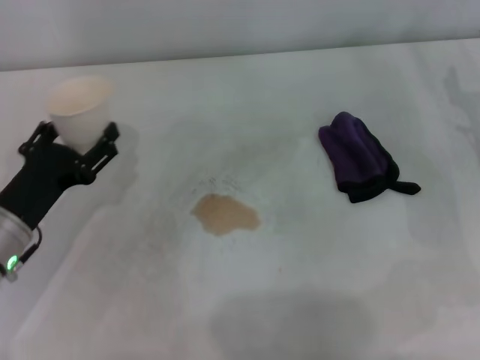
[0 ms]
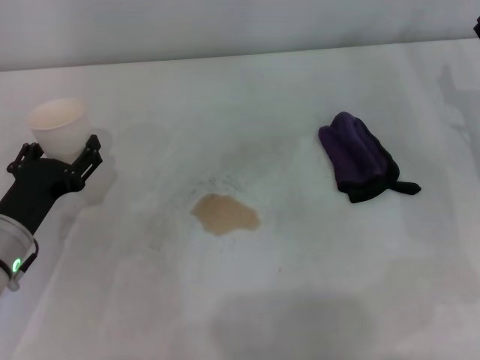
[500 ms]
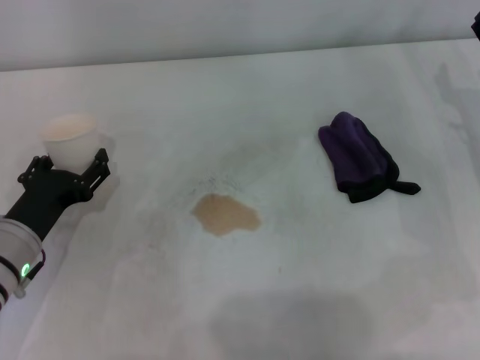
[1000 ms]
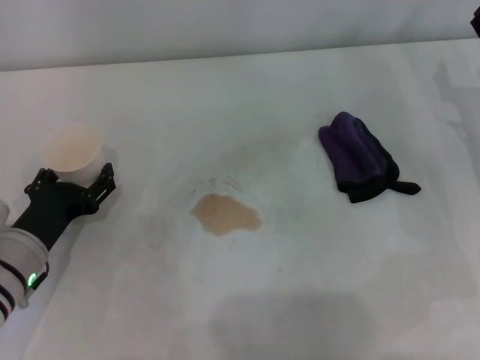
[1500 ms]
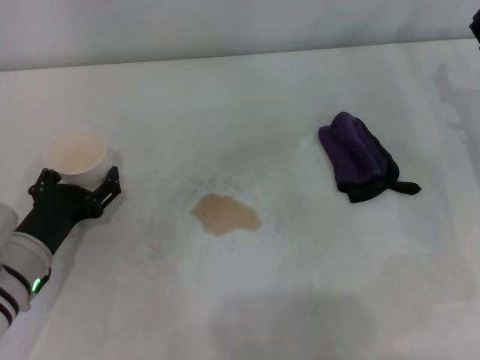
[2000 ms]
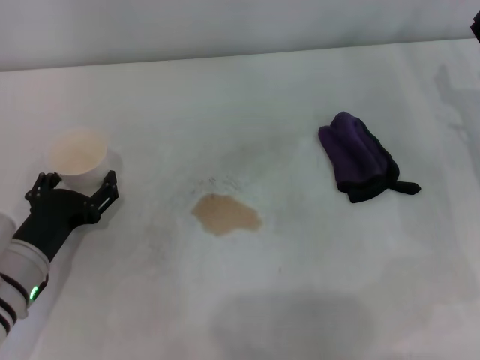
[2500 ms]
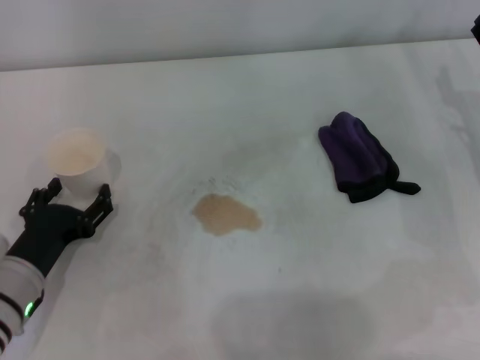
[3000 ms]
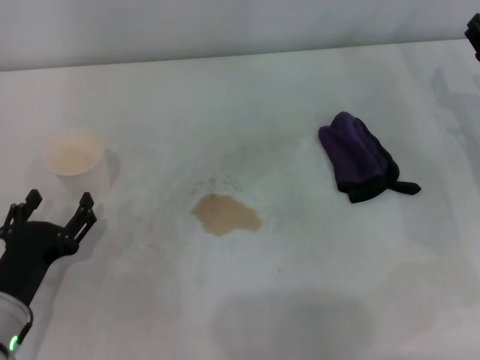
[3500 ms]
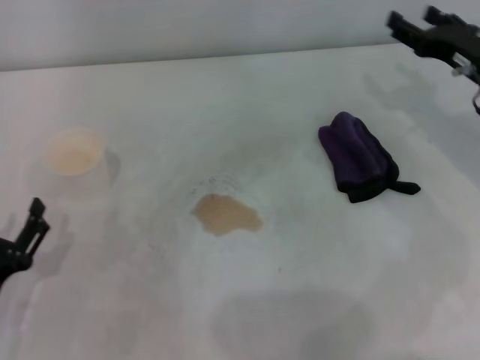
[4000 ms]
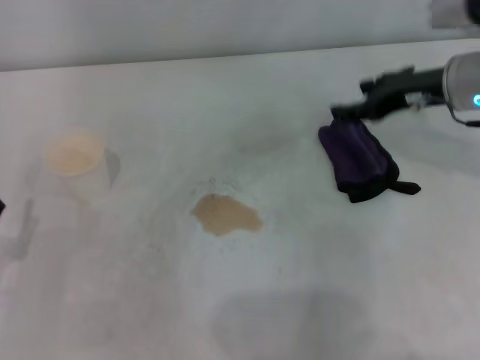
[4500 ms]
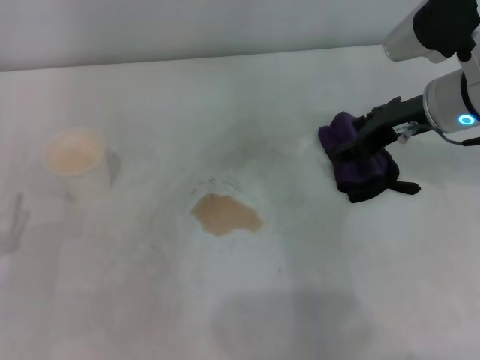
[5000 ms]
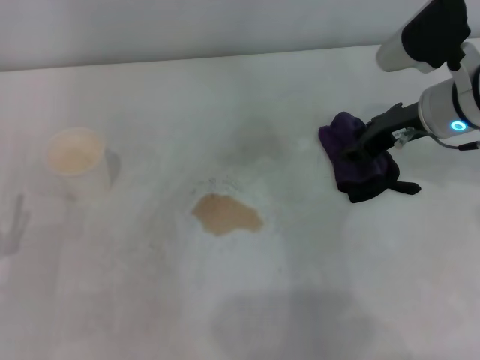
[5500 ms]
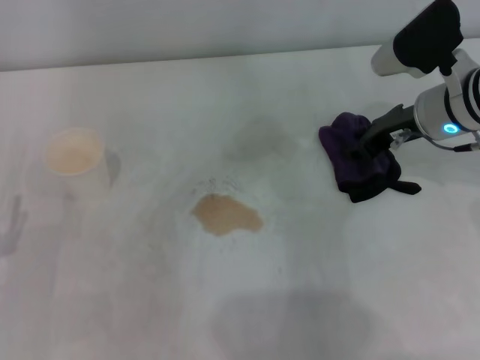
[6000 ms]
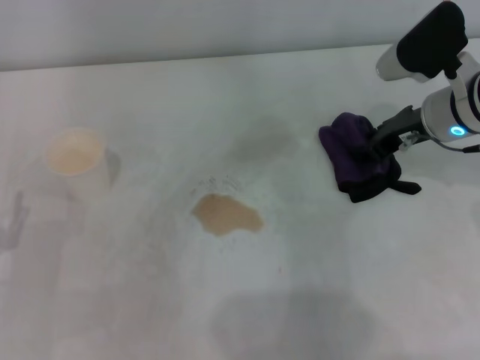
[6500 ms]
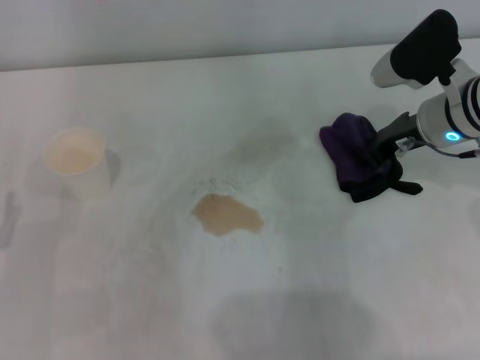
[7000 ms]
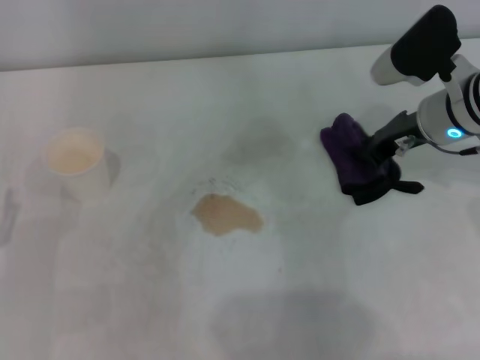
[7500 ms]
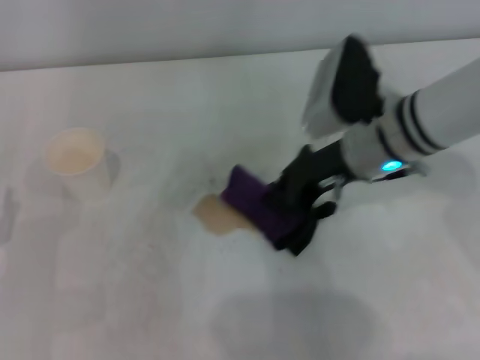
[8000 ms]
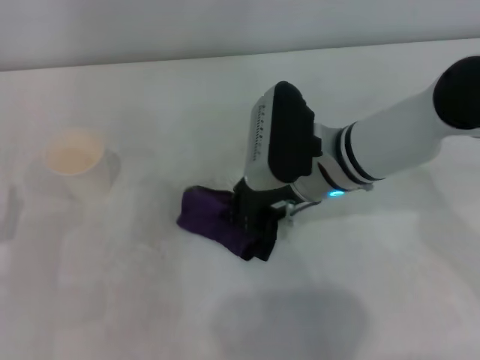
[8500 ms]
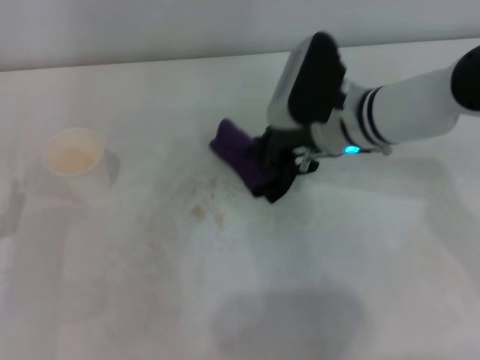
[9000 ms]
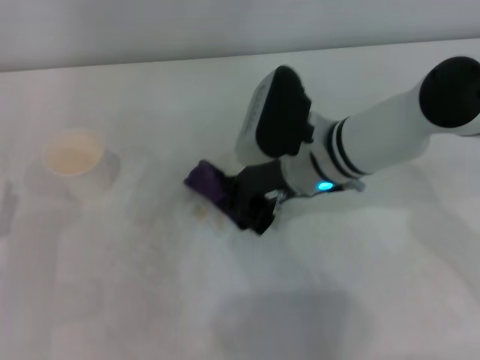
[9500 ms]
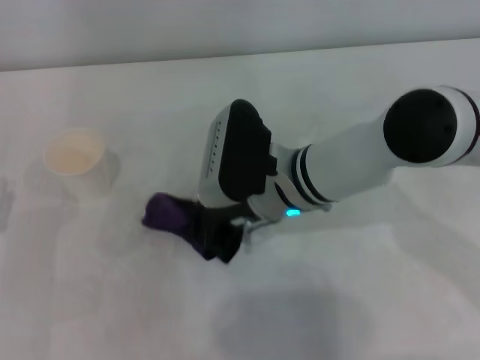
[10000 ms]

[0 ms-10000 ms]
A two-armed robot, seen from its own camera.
Step, 0 ms to 2500 ms: Stand the paper cup upright with the left gripper.
Step, 3000 ms to 6000 ms: Grasp the rag with the right gripper.
0 ms to 2000 ms: The grippers stay close to where they were, moving slightly.
2000 ms to 4000 ms: The left gripper travels backward by about 10 cm.
4000 ms to 6000 ms: The right gripper goes roughly 5 cm to the left, and closes its fingers.
6000 ms to 8000 ms: The right gripper moves to the left, some 10 cm, and closes up.
8000 ms to 10000 ms: The right gripper heads to the left, covering some 10 cm.

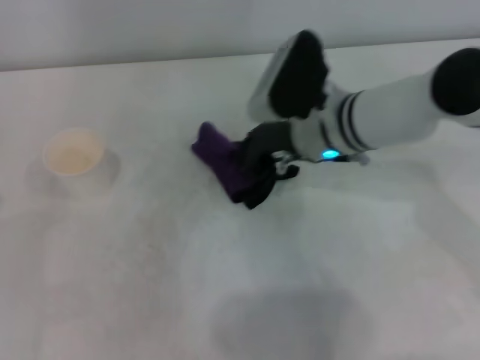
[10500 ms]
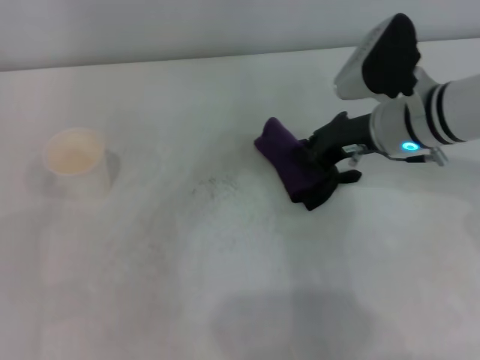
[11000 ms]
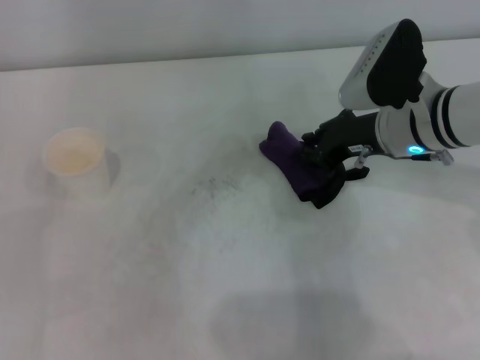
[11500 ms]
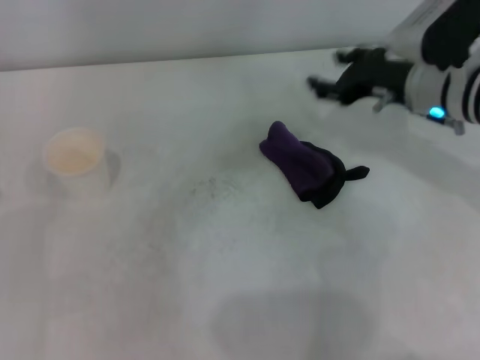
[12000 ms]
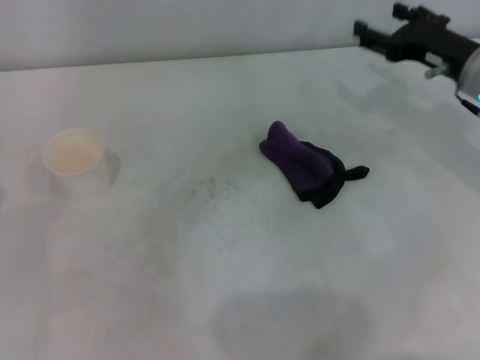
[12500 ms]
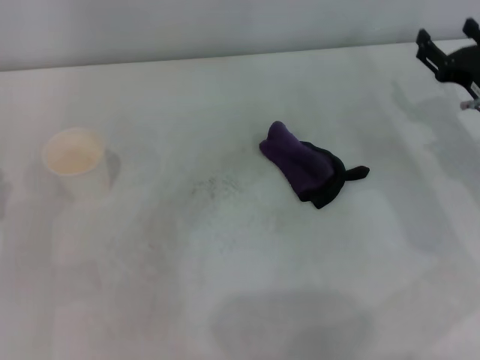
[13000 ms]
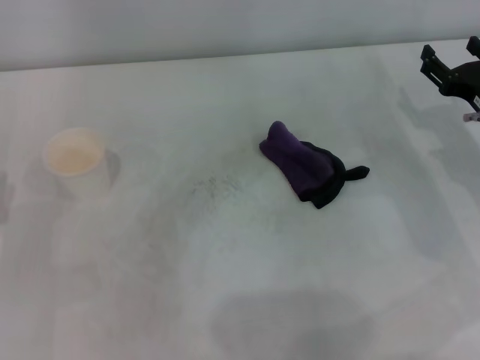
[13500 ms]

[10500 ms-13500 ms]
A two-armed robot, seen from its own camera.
10500 ms to 12000 ms: The right gripper heads to the right, covering roughly 10 cm, and opens up.
12000 ms to 13500 ms: The right gripper moves to the right, downward and backward, approximately 10 cm, and opens.
